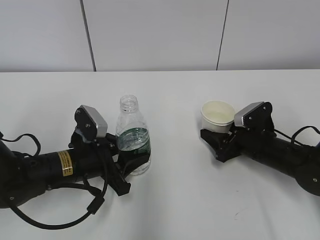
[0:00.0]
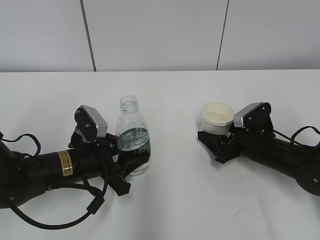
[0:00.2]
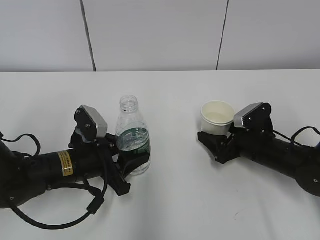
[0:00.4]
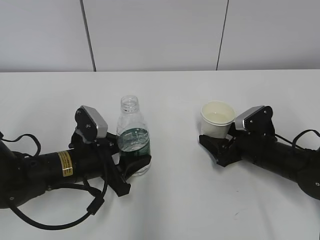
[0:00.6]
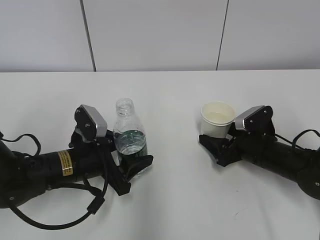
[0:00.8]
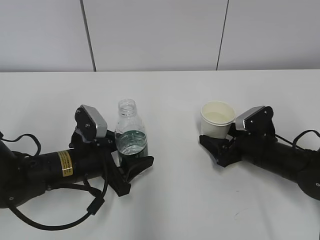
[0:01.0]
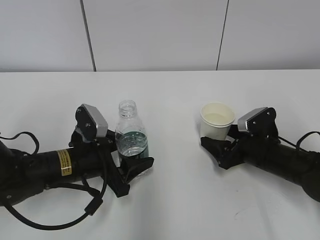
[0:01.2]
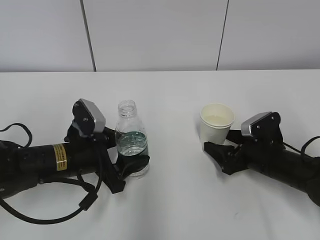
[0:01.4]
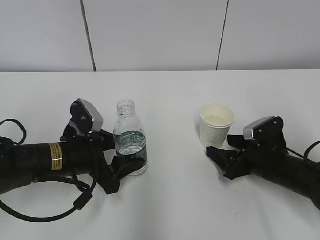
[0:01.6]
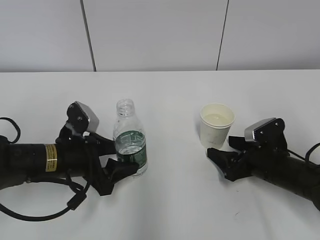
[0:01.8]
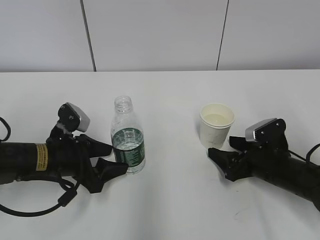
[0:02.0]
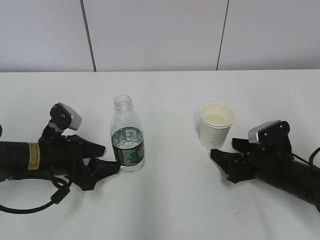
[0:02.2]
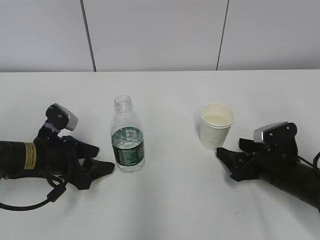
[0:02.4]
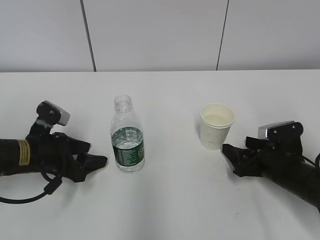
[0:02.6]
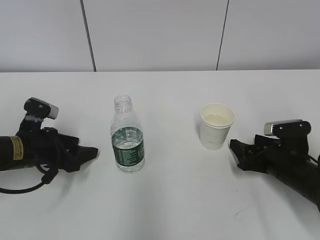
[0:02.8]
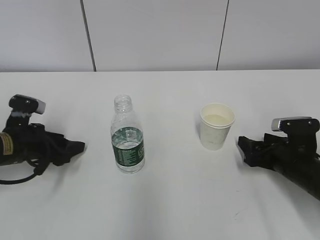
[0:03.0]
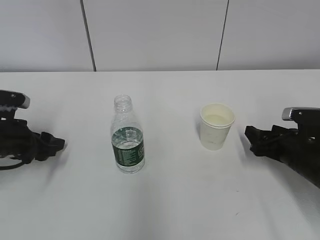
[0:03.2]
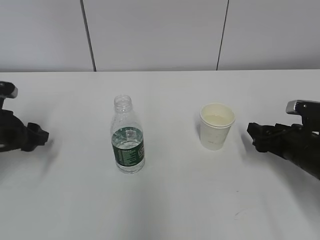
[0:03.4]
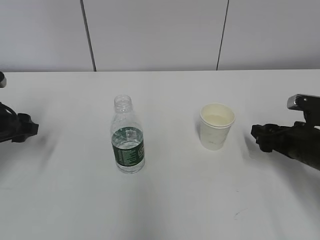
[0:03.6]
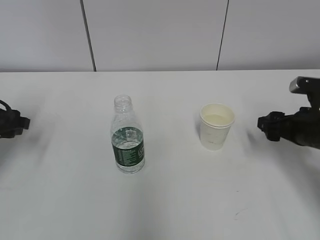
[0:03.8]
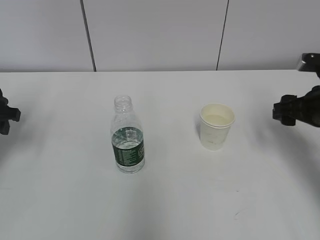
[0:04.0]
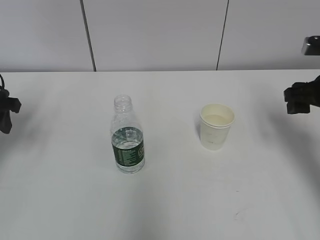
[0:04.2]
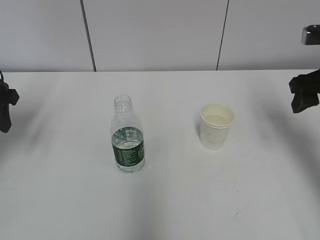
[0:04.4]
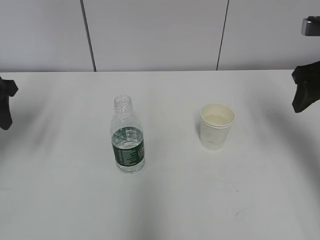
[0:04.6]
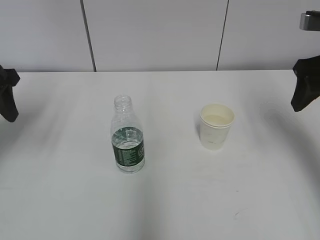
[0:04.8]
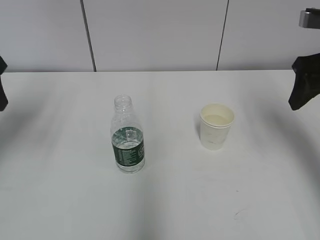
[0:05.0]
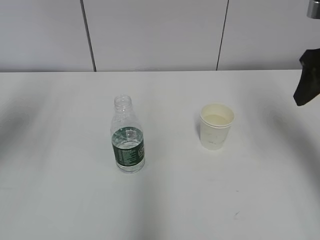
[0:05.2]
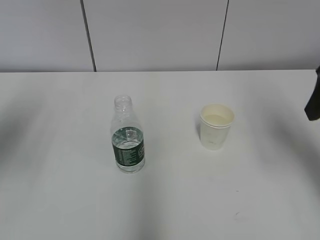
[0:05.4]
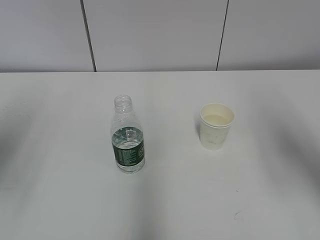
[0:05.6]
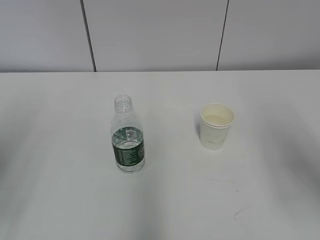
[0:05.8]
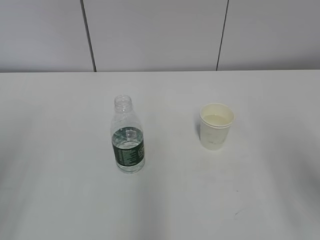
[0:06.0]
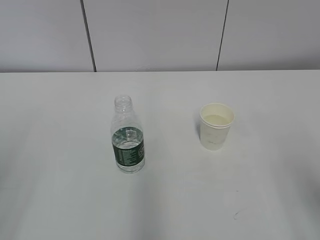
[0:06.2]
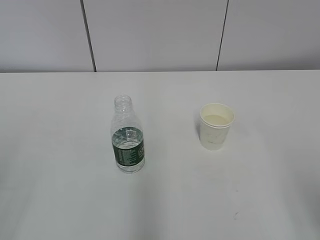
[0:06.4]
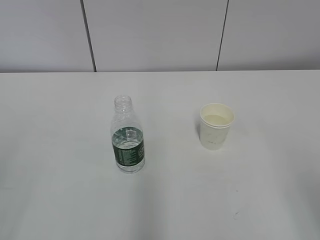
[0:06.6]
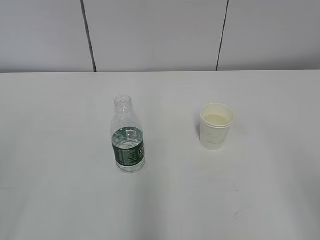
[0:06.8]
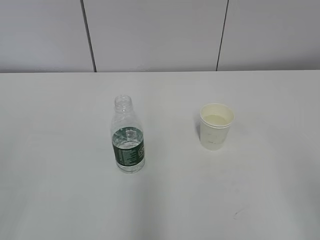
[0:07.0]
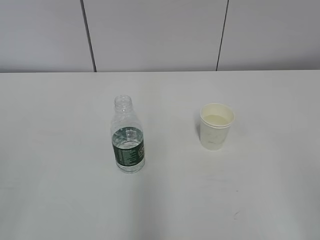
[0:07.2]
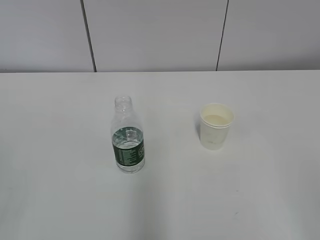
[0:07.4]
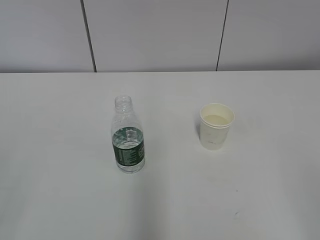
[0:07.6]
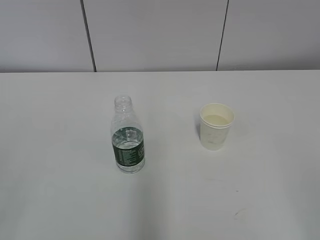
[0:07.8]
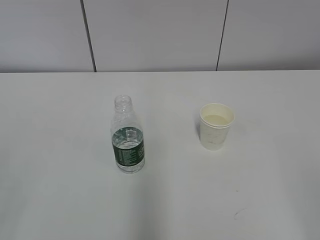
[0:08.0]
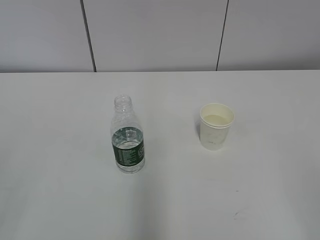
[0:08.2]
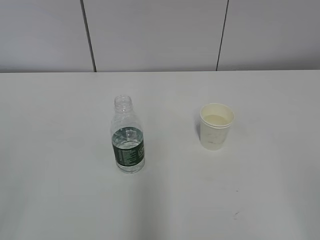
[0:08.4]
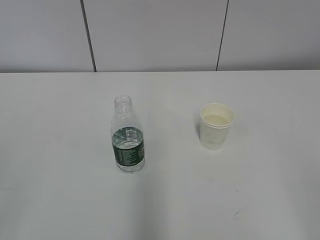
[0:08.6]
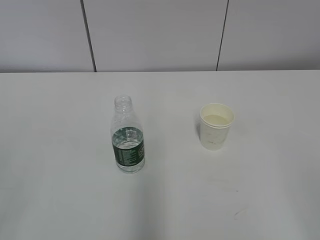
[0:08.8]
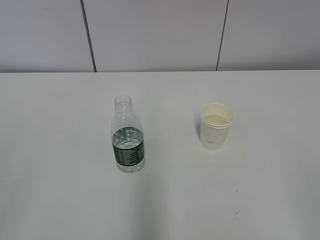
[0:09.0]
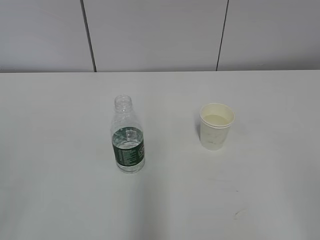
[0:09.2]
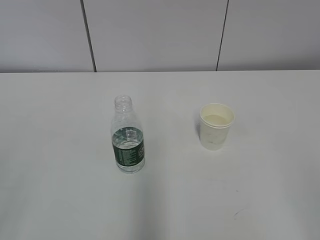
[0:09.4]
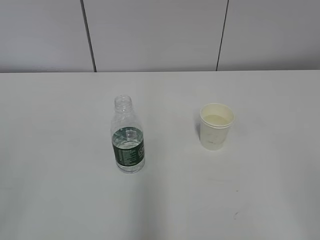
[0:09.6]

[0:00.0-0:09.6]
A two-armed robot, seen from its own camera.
0:00.0 to 0:01.6: The right gripper opens up. Meanwhile the left gripper opens.
0:01.6 to 0:03.2: The right gripper changes place by about 5 cm. The left gripper moves to the left, about 15 cm.
0:03.2 to 0:04.8: Both grippers travel together upward, roughly 20 cm.
0:04.8 to 0:06.4: Both grippers move backward, about 25 cm.
0:08.0 to 0:09.6: Neither gripper changes place.
